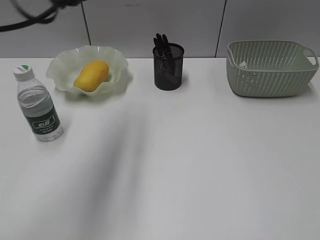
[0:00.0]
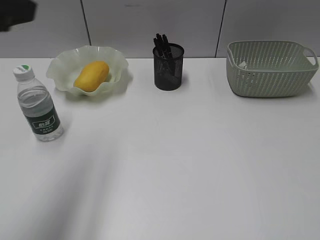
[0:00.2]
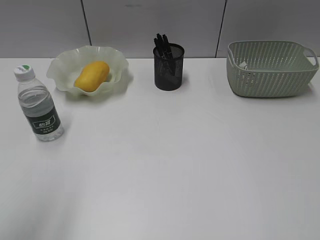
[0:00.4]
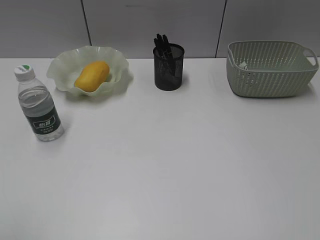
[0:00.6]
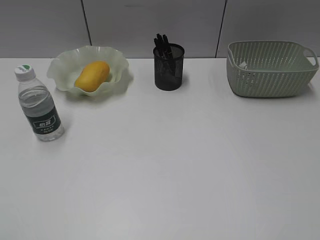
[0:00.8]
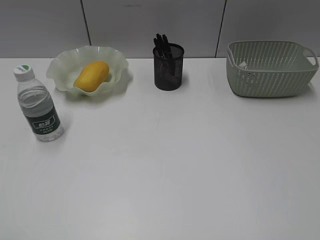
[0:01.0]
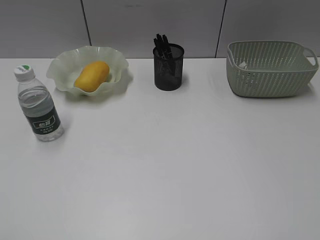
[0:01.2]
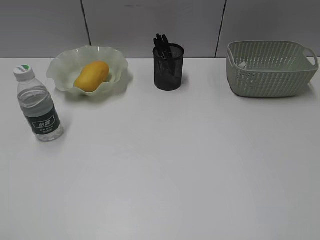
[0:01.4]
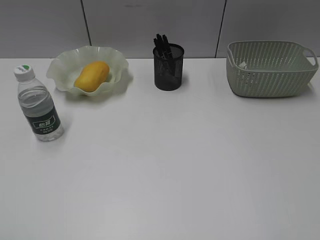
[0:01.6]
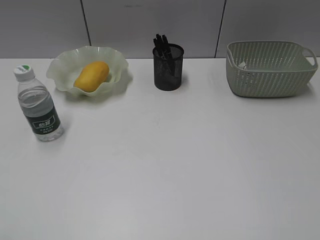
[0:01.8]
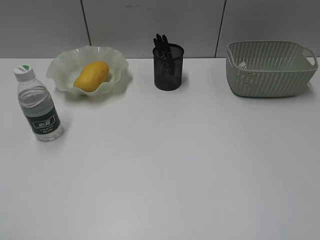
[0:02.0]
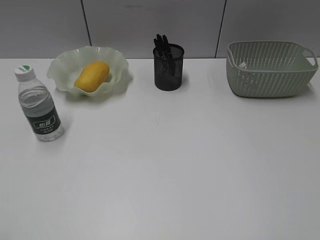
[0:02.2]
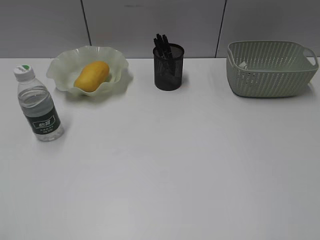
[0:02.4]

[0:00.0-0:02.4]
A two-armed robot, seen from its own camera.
0:00.0 to 0:01.2: The left gripper goes some 35 cm backward and to the left.

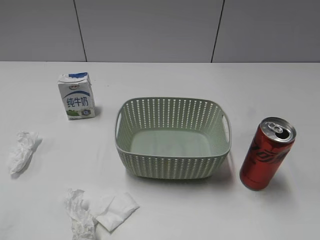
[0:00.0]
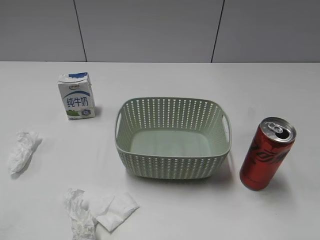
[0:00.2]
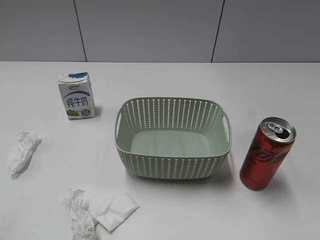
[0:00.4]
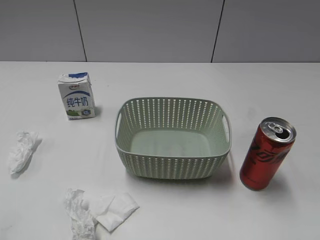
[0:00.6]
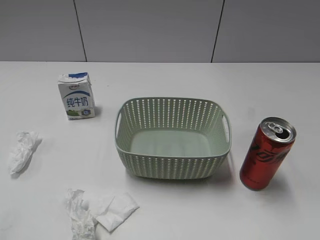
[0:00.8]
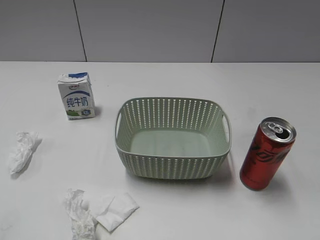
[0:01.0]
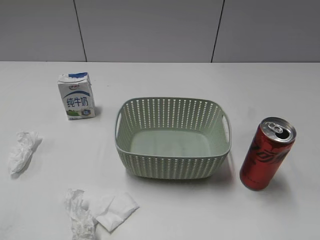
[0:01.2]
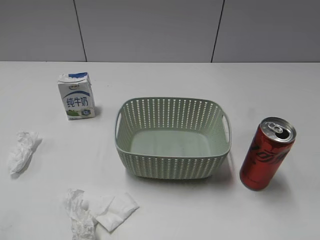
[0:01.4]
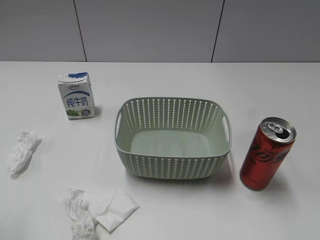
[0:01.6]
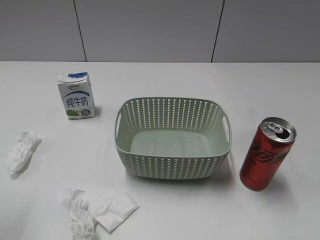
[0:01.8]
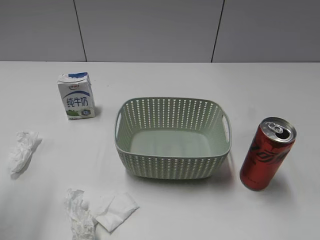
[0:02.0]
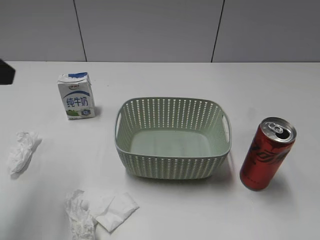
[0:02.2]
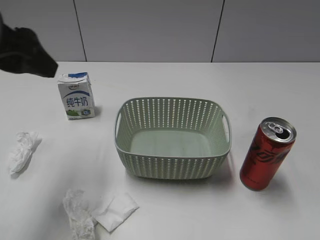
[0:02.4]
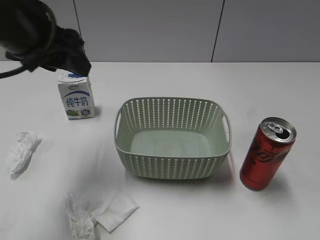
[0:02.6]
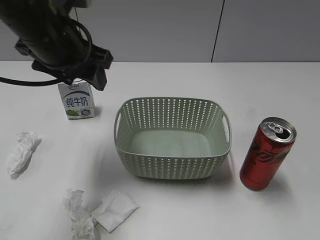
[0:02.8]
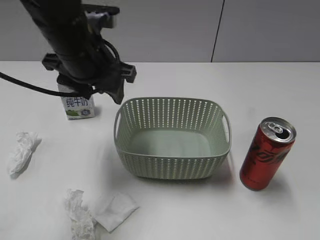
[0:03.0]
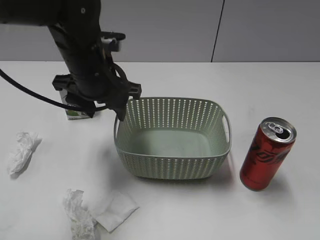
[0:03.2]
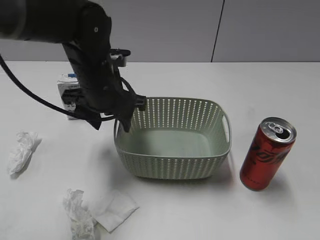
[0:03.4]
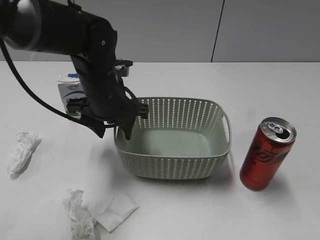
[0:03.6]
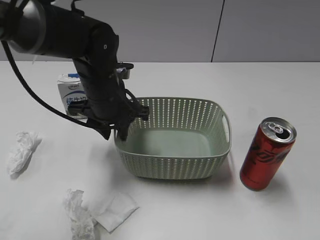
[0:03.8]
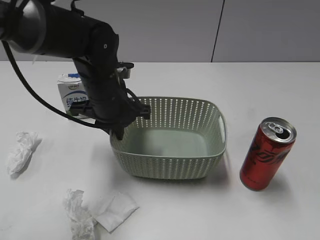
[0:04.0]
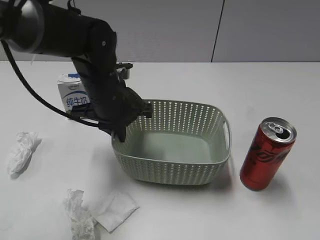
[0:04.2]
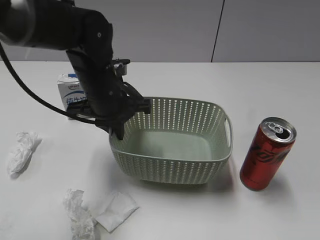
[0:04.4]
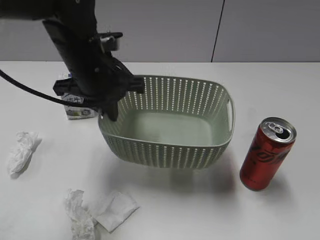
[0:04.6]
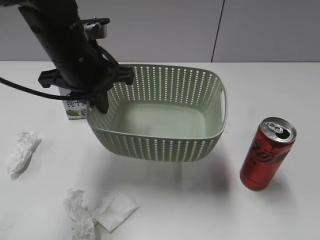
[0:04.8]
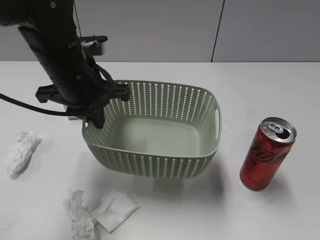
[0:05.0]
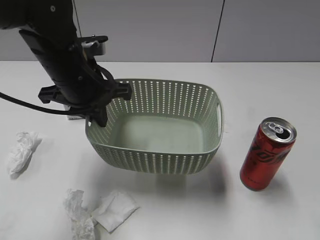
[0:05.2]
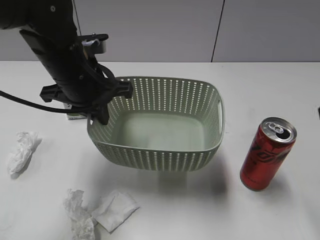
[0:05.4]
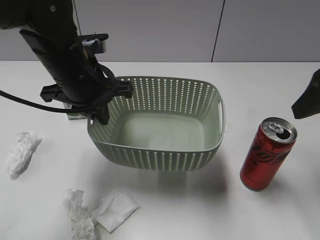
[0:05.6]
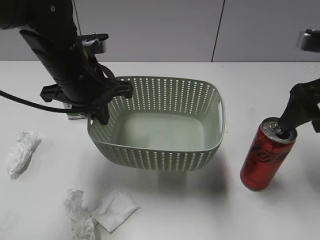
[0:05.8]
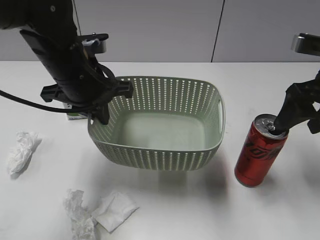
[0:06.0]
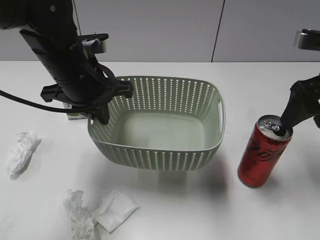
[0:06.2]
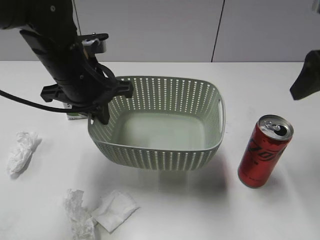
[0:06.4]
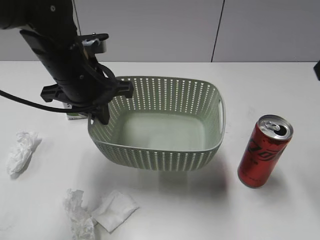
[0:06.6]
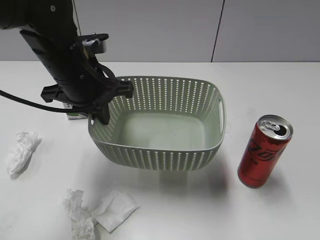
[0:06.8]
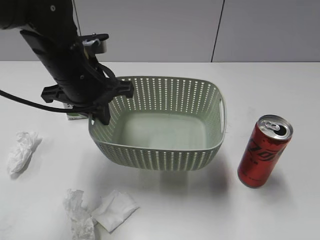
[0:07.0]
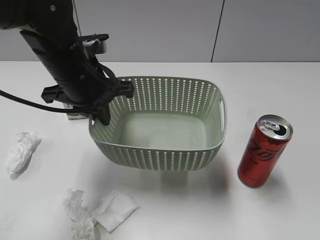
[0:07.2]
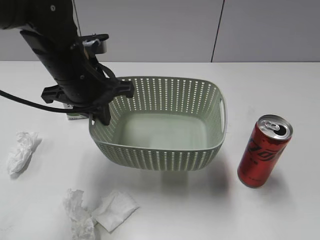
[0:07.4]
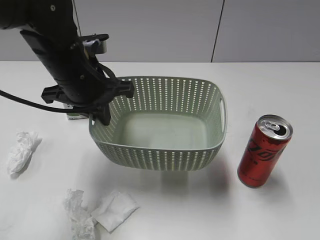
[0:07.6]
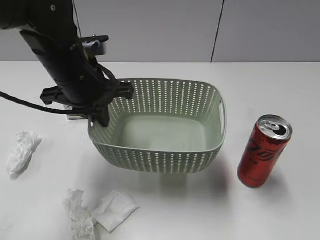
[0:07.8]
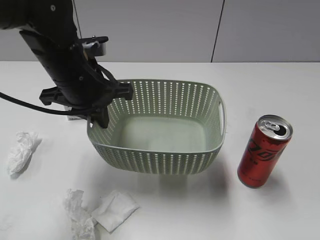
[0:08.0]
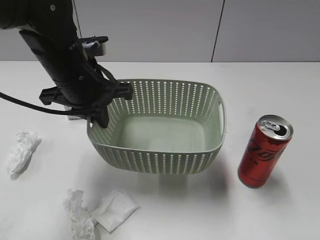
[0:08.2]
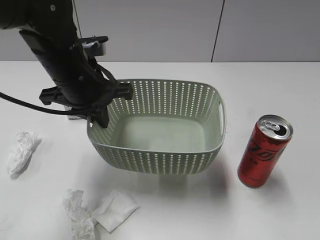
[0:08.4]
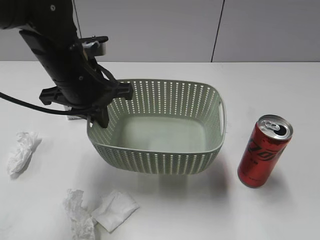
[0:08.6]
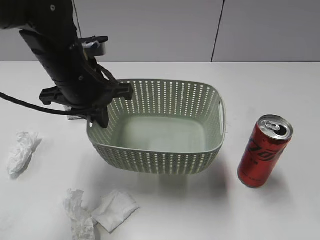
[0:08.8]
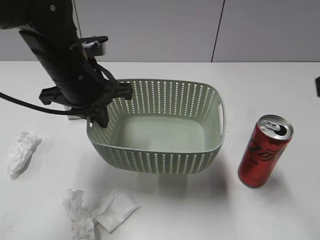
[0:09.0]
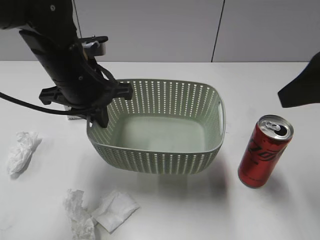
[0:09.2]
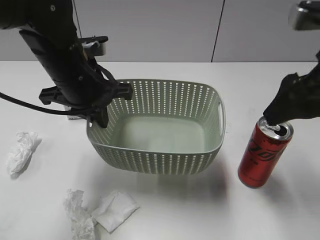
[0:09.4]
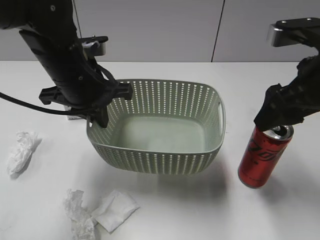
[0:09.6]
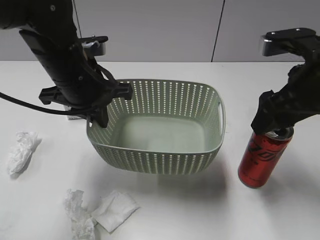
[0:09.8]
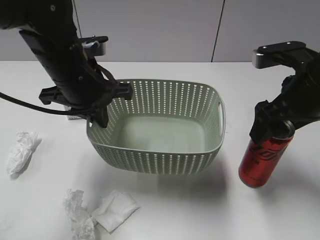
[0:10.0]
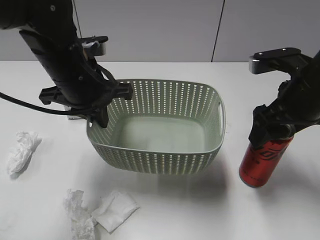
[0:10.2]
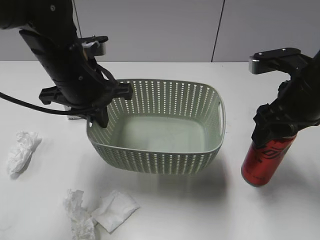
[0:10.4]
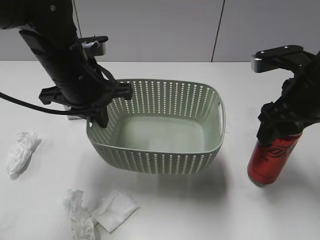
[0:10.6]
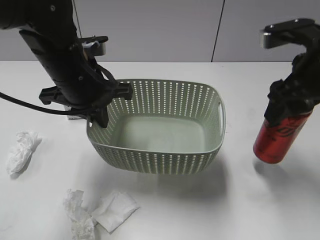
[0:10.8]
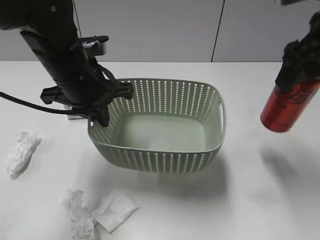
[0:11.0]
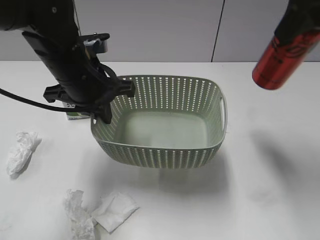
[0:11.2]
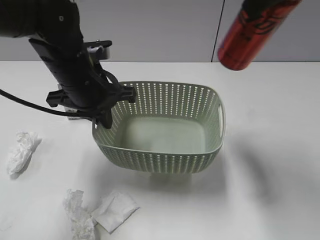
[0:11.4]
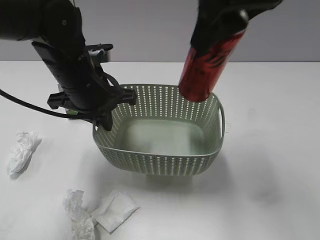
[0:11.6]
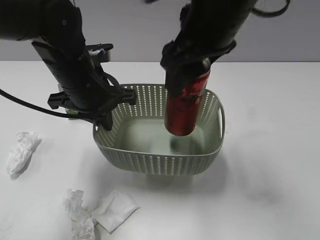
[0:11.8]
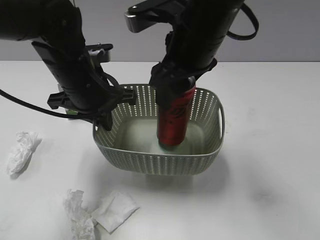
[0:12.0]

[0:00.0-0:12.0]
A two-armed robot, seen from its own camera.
Step, 0:02.2 to 0:04.0: Grasp the basket with left gripper.
Step, 0:04.2 to 0:05.2: Lift the basket with left gripper.
Step, 0:05.4 to 0:10.4: Grasp the cola can with right gripper.
0:01.6 to 0:03.0: The left gripper goes about 30 cm forward and to the right.
0:03.0 to 0:04.4: The left gripper heads downward, covering approximately 10 cm, and closes its fingers.
0:04.4 to 0:06.0: The right gripper heads forward, covering approximately 25 cm; the left gripper ends up approximately 5 cm from where it was.
0:06.0 to 0:07.6: The right gripper goes approximately 25 cm backward.
0:07.6 to 0:09.0: The right gripper travels forward by roughly 15 cm, and opens up.
0:09.0 to 0:10.4: The right gripper is displaced downward, forward and to the left by about 20 cm, and closes its fingers.
0:10.4 to 0:12.0: The right gripper heads to the left, covering about 15 cm, and reaches roughly 20 cm upward, then returns.

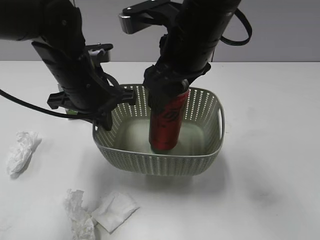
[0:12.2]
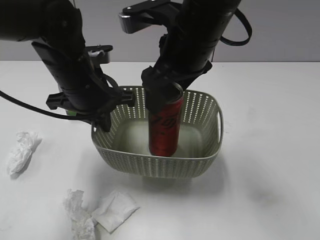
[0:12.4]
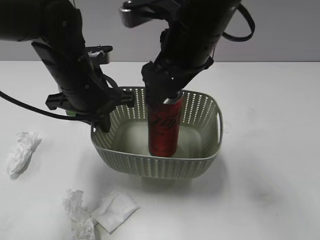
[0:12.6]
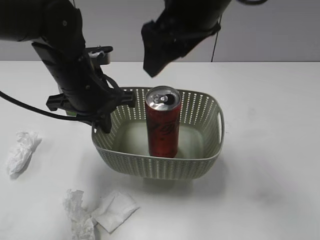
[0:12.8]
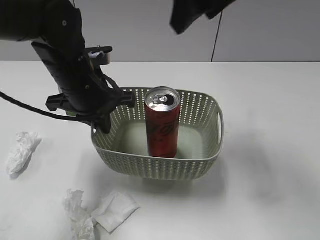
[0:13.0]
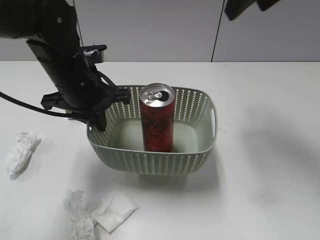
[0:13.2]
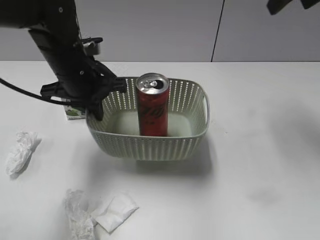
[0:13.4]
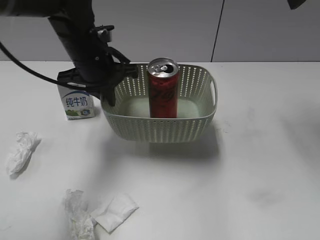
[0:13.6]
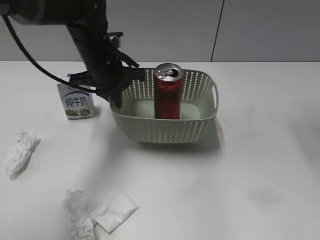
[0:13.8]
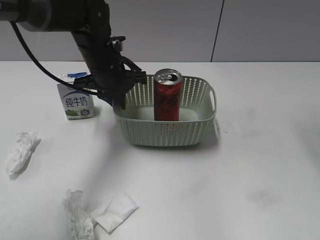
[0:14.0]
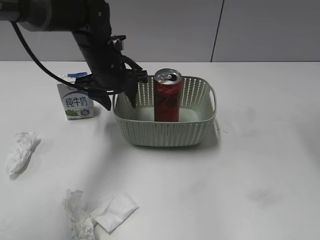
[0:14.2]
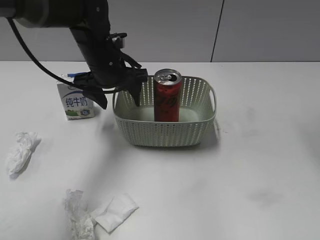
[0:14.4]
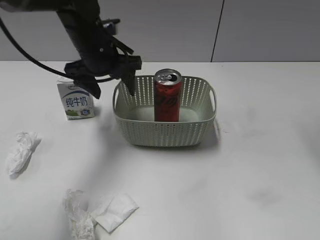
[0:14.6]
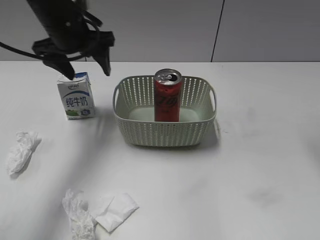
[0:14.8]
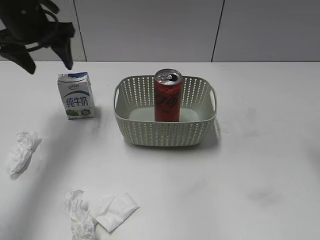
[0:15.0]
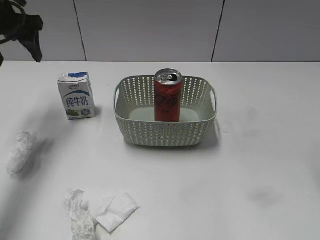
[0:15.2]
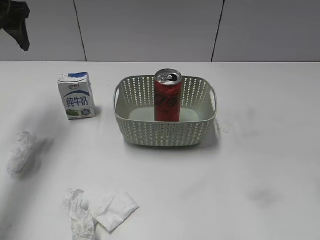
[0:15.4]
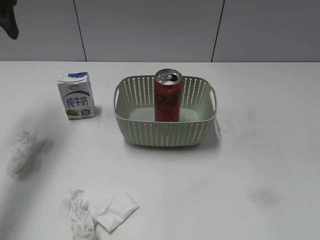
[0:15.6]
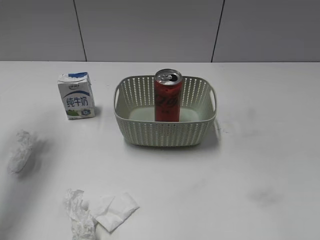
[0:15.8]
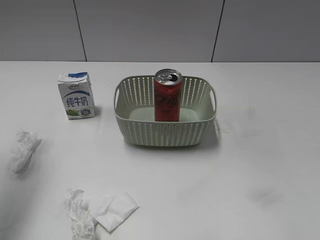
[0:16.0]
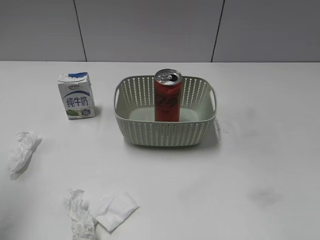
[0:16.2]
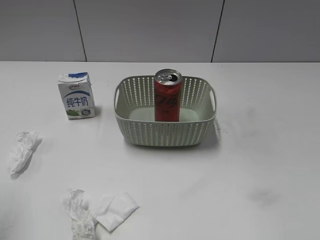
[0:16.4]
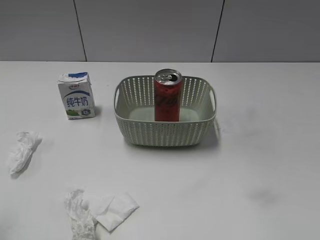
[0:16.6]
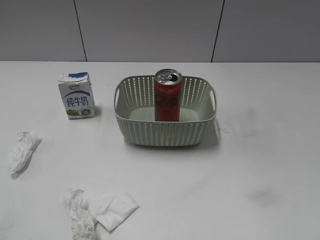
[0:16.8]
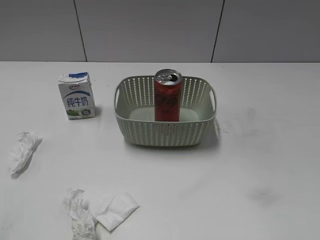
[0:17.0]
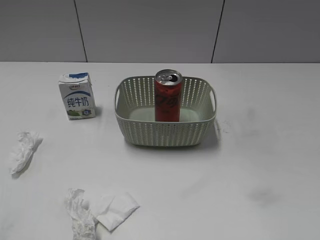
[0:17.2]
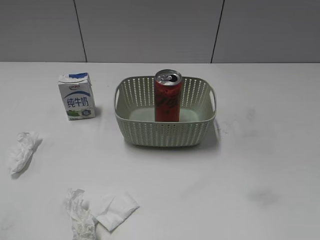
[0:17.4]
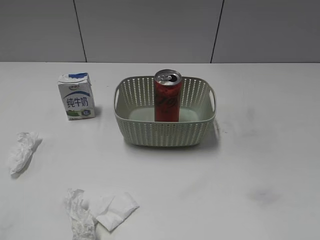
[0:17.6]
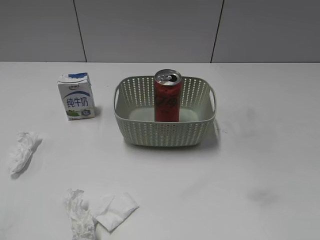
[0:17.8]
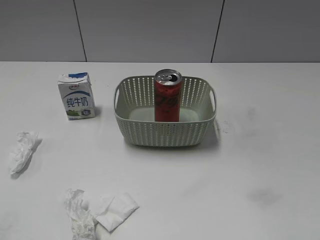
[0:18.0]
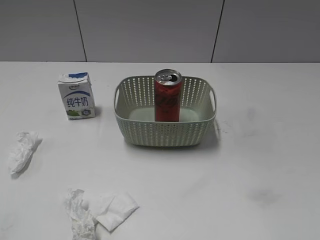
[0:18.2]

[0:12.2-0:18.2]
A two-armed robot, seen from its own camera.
Step, 0:12.6 to 0:14.0: Place the basket on the table with left gripper.
0:12.2 to 0:13.8: The right gripper shifts some 25 cm to the right and upward, and opens, while the left gripper heads forward, covering about 10 cm.
0:13.8 to 0:15.2: The left gripper travels to the left and upward by some 20 cm, and opens its fingers; the right gripper heads backward, covering about 10 cm.
0:15.2 to 0:16.6: The left gripper goes roughly 30 cm backward.

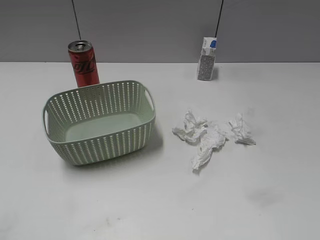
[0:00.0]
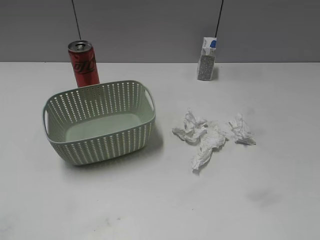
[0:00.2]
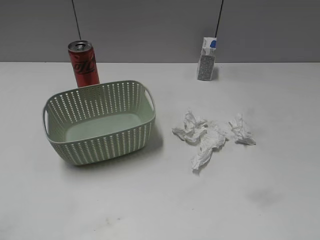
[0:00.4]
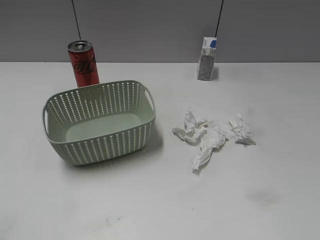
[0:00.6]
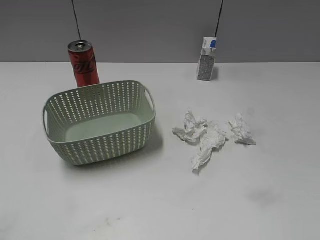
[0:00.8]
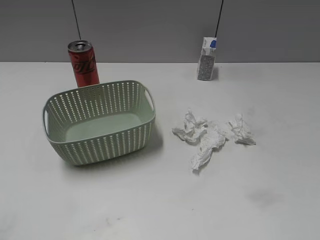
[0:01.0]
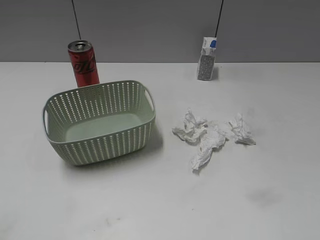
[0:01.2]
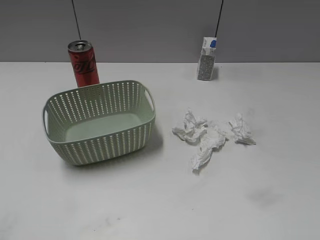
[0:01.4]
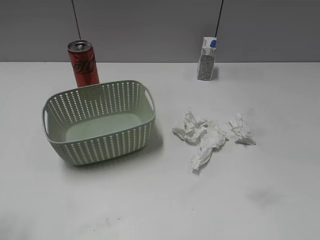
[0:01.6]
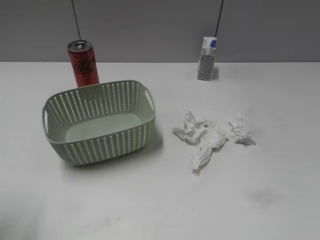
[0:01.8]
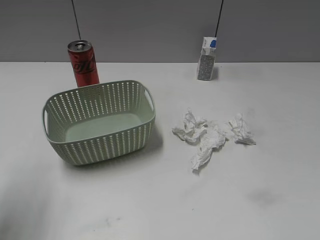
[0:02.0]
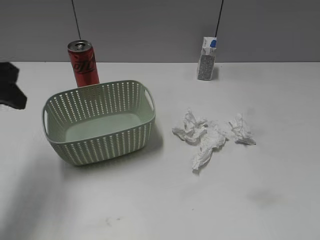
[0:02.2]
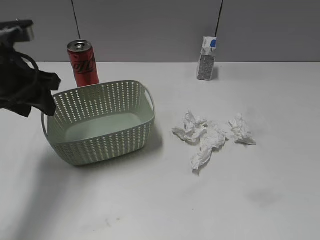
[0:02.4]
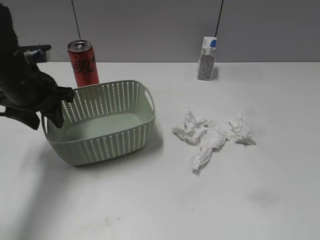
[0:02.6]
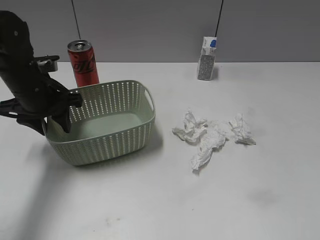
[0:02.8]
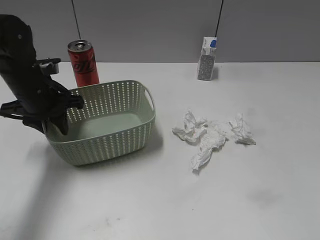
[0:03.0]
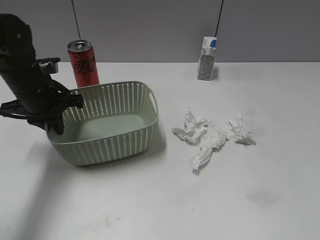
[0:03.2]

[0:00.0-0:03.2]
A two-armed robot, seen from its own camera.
0:01.6 to 0:03.2: The left gripper heads forward and downward, covering some 30 cm, and closes.
